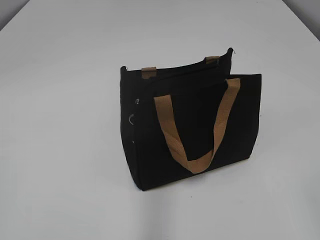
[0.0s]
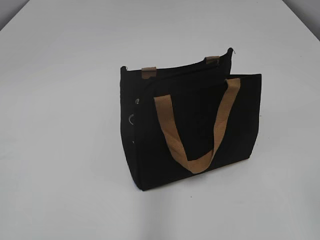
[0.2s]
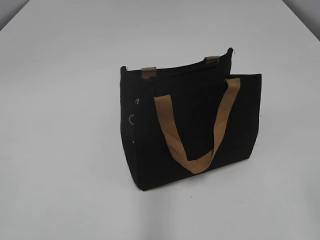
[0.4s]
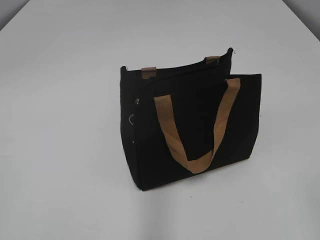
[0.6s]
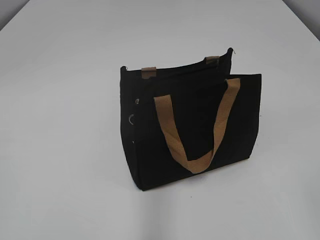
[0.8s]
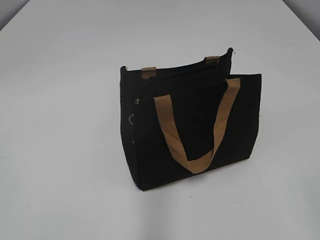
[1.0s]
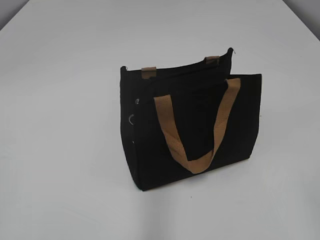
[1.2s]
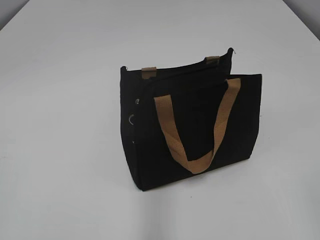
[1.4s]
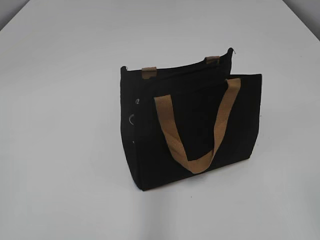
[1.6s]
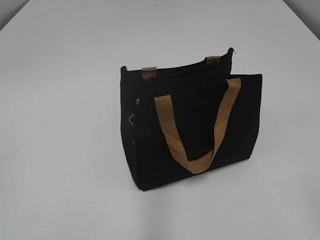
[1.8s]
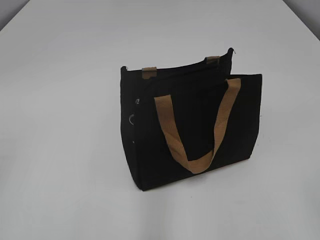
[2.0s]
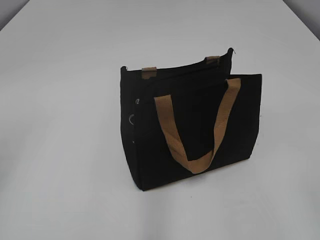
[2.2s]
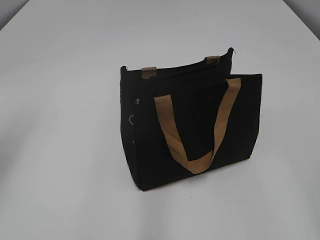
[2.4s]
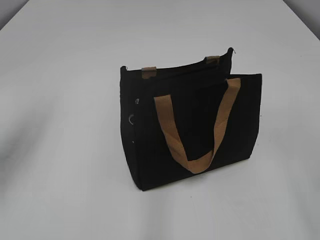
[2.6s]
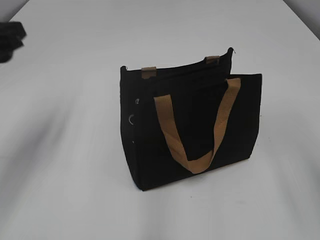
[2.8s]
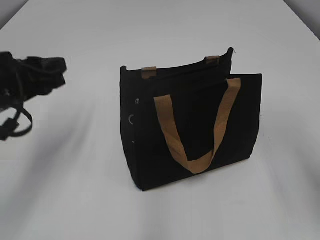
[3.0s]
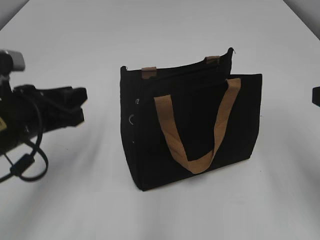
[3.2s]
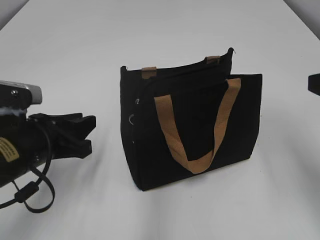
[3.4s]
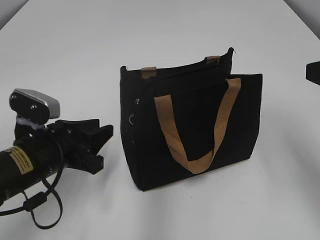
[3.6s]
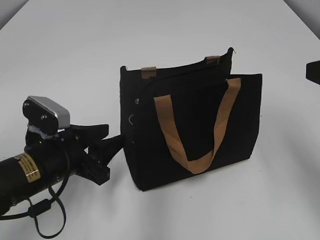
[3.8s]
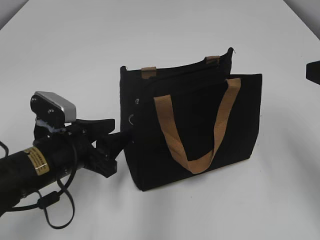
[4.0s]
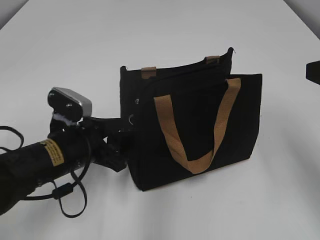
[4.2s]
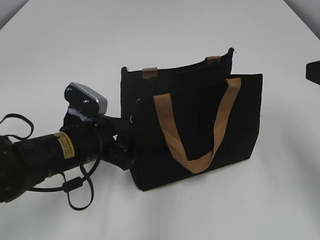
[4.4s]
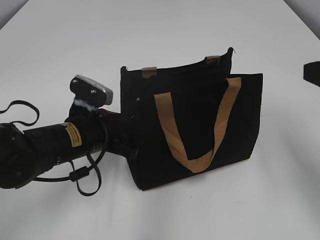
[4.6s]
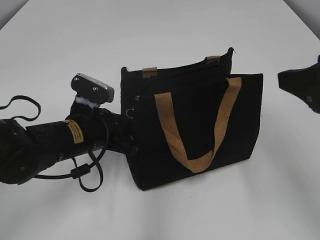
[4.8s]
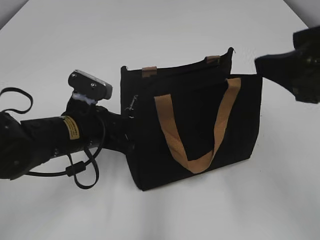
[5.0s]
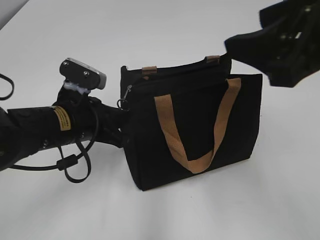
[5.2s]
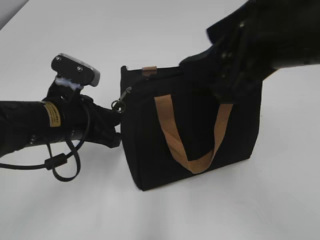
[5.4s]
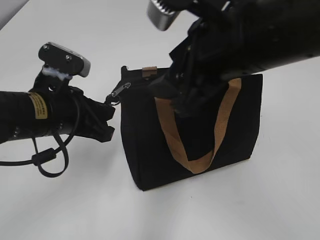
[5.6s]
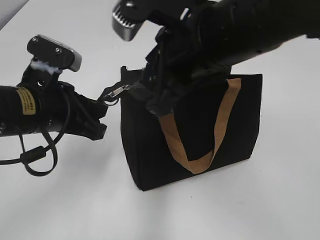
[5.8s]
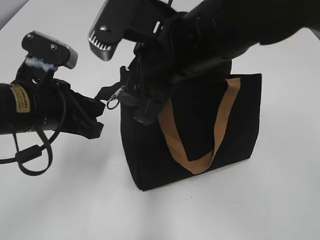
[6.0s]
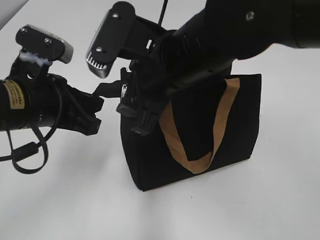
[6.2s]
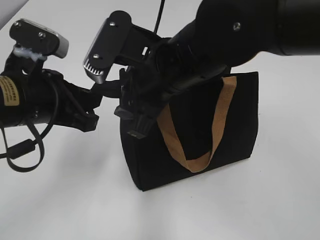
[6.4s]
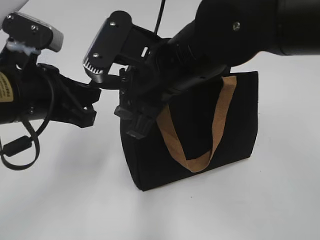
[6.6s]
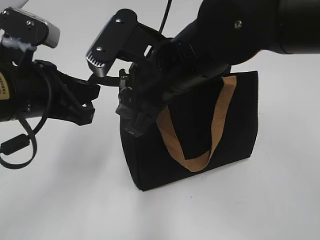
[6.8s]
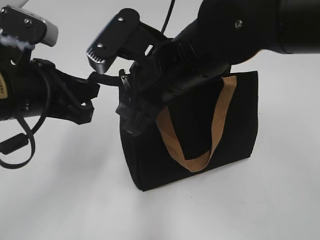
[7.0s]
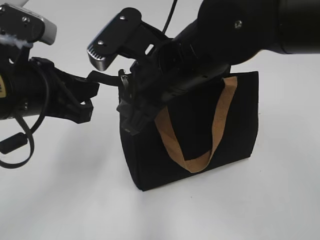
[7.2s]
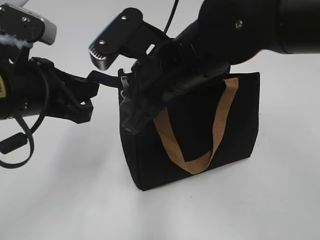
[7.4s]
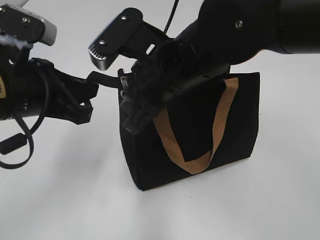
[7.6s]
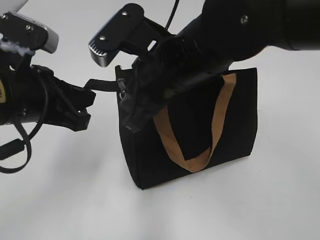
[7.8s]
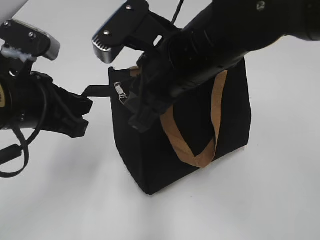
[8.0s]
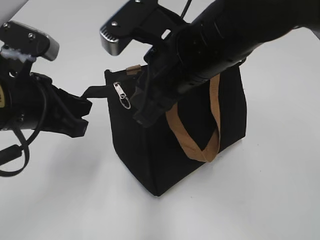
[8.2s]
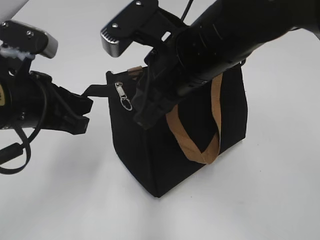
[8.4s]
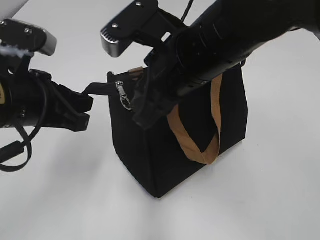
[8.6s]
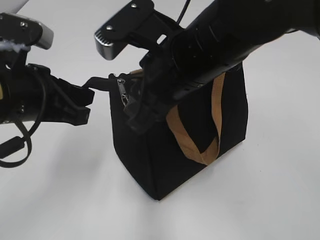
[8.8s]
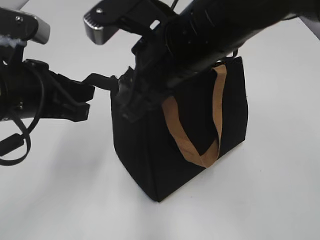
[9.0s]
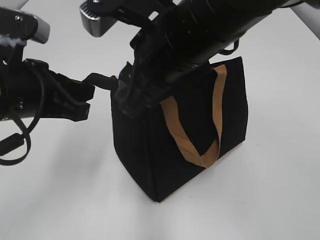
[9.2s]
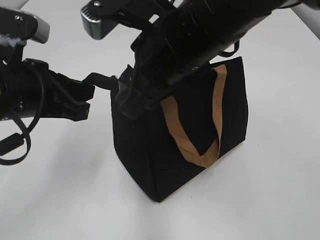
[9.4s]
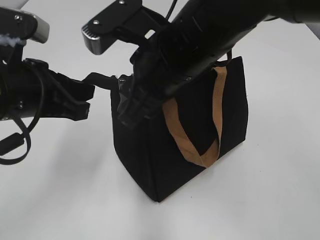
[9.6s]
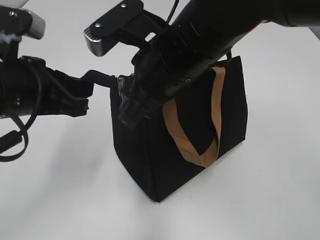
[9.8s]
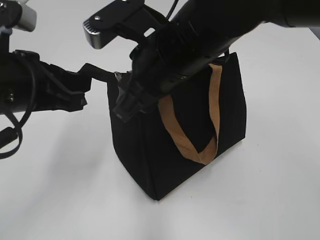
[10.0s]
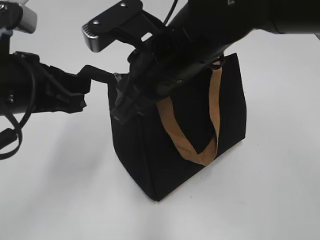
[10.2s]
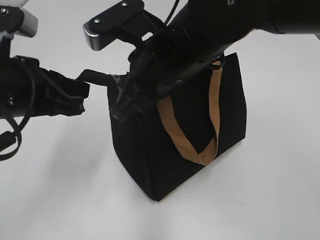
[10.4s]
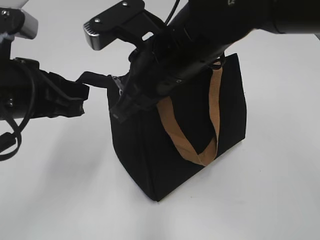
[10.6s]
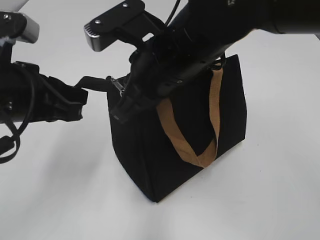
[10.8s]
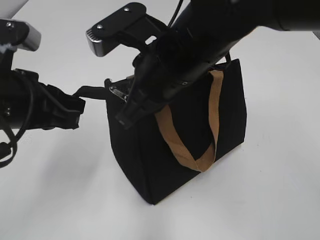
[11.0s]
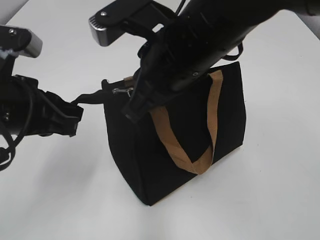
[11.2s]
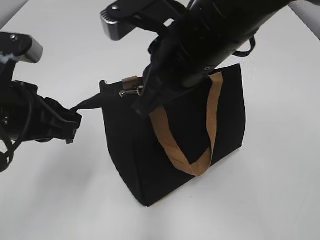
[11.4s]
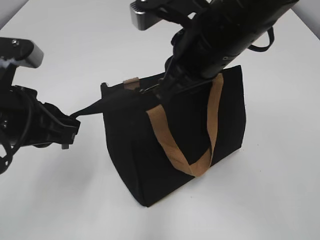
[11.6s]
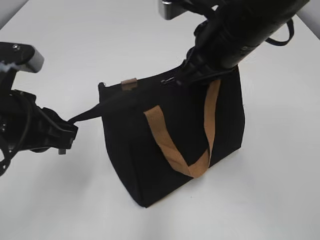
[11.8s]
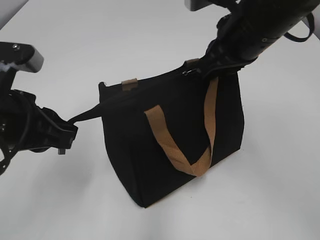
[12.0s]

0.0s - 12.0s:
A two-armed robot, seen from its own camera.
1.6s - 3.0s: The right gripper is displaced forward by roughly 15 cm. Meanwhile the left gripper heads forward, covering about 25 cm.
3.0s - 4.4s: The left gripper goes roughly 15 cm downward and to the right, and opens its fingers. Meanwhile the right gripper is displaced forward by roughly 5 cm.
4.4s - 6.0s: The left gripper goes approximately 10 cm upward, and closes. Meanwhile the right gripper moves to the left, some 25 cm.
6.0s - 7.6s: The right gripper closes up.
9.0s - 10.4s: There are only small adjustments of the grippers.
10.4s - 12.0s: The right gripper moves to the right, some 10 cm, and closes up.

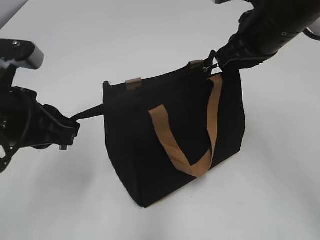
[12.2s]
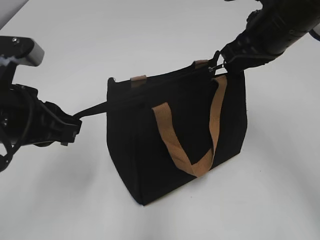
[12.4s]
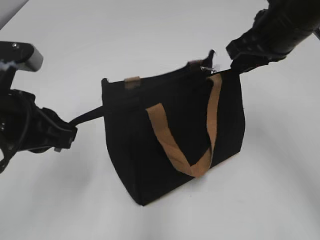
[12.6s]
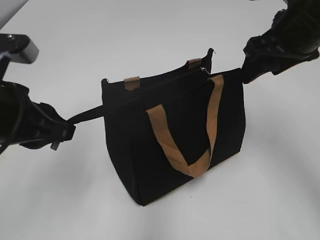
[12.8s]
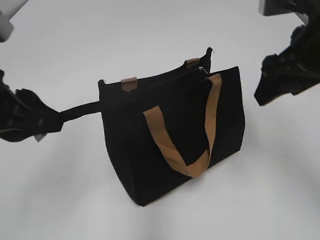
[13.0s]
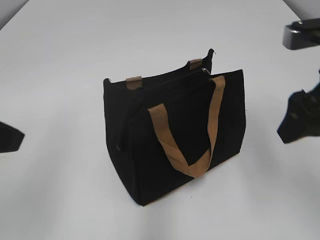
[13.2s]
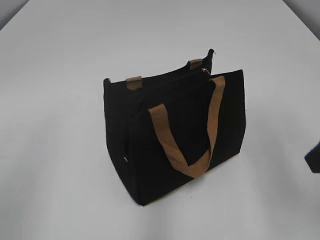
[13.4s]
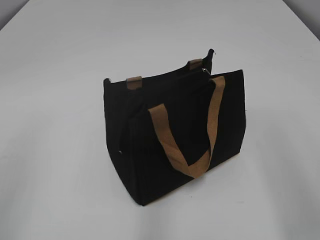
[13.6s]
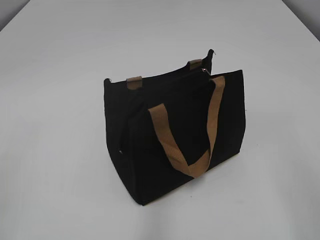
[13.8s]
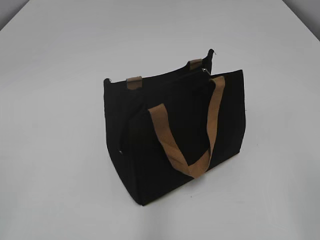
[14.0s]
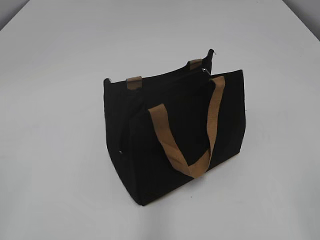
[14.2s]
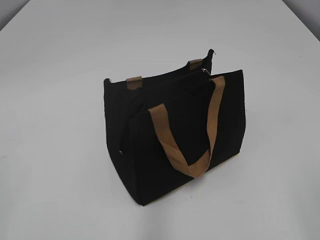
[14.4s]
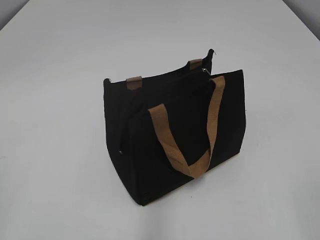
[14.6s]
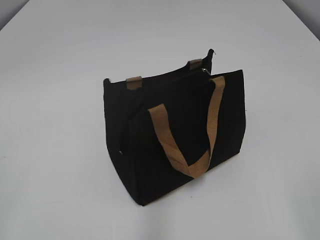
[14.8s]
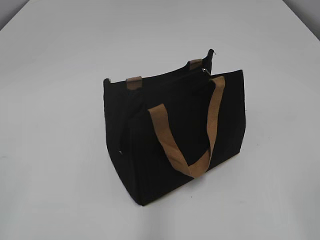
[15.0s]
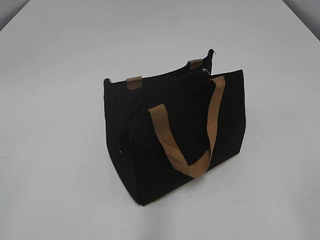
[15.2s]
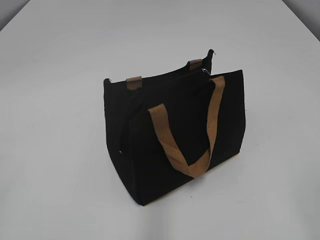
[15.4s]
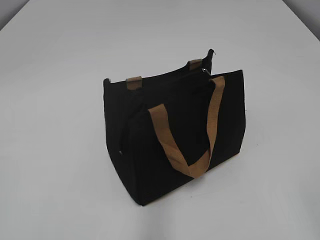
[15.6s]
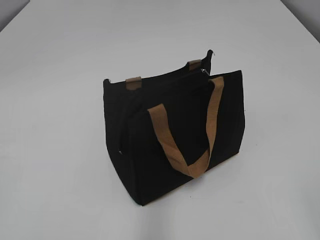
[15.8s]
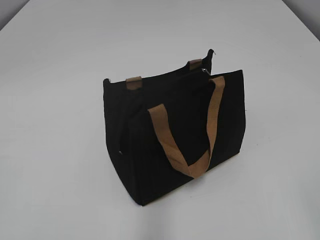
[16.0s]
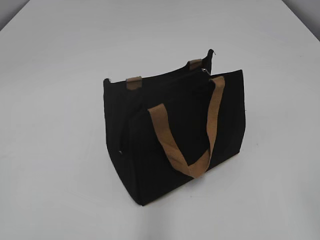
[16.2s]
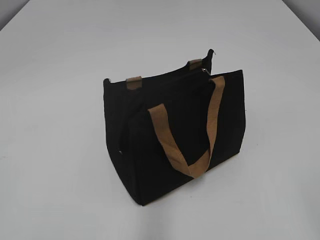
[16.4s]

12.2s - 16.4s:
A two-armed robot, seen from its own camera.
Step, 12.6s - 13.0s: Grab the zipper with your left hand.
12.2s - 13.6s: The left gripper shifts about 15 cm backward, upward and to the left, and opens. Meanwhile the right gripper goes approximately 20 cm backward and to the right, and opens up.
13.6s - 15.0s: The right gripper heads backward, covering roughly 10 cm.

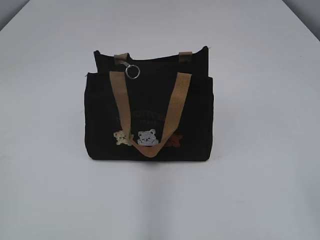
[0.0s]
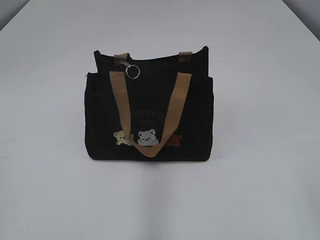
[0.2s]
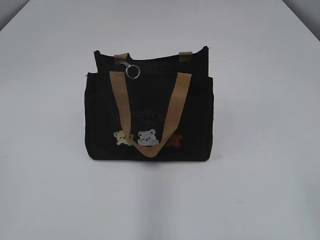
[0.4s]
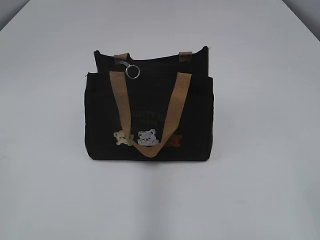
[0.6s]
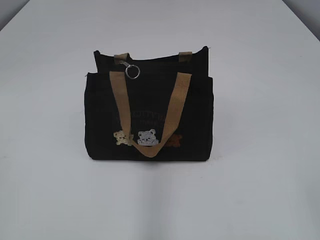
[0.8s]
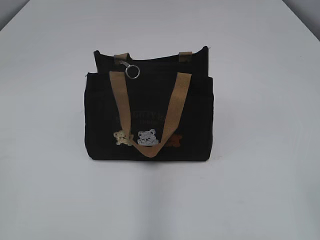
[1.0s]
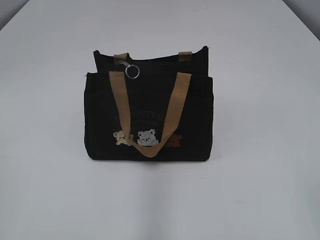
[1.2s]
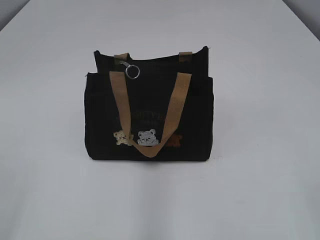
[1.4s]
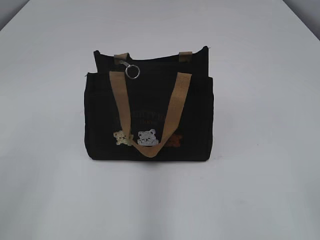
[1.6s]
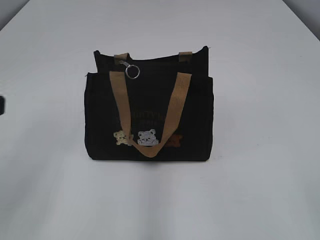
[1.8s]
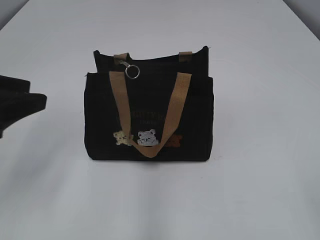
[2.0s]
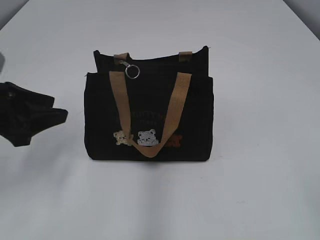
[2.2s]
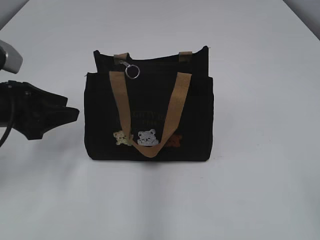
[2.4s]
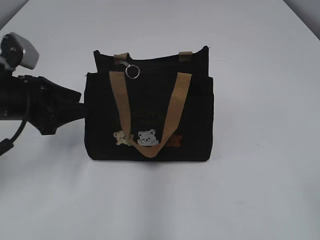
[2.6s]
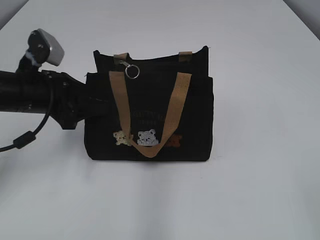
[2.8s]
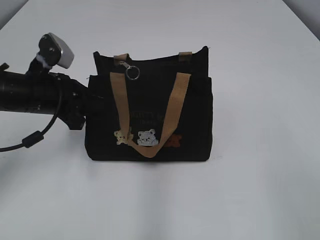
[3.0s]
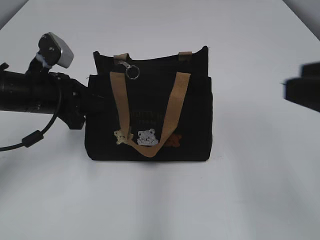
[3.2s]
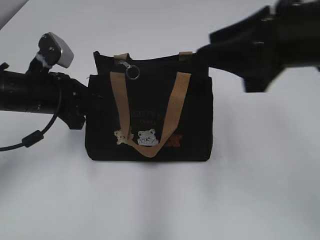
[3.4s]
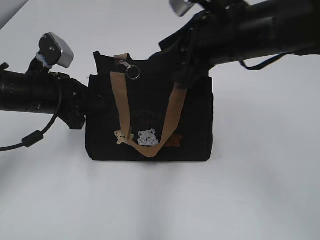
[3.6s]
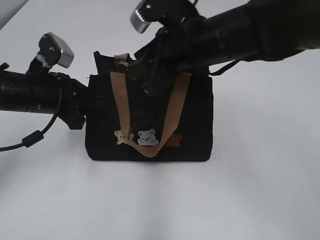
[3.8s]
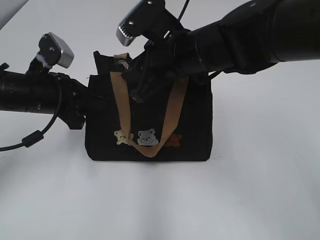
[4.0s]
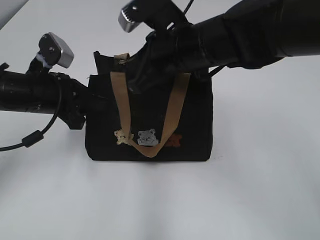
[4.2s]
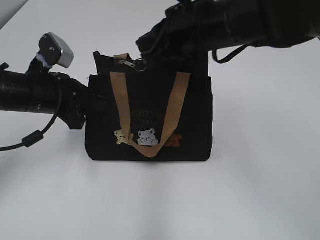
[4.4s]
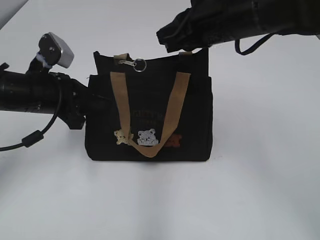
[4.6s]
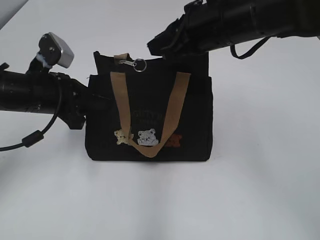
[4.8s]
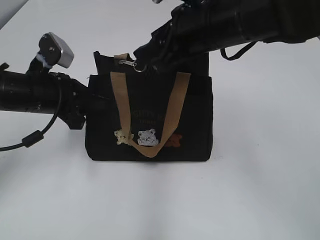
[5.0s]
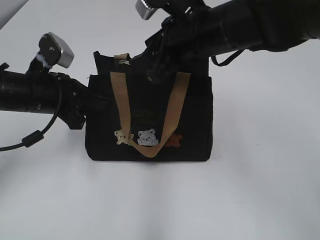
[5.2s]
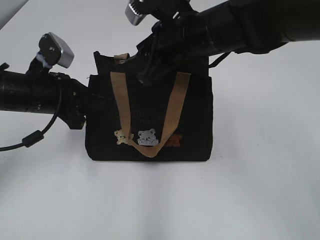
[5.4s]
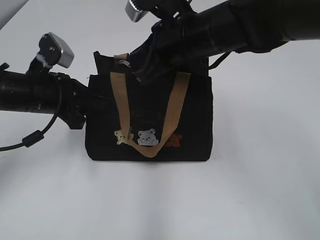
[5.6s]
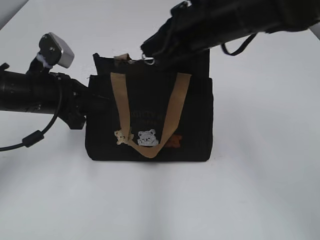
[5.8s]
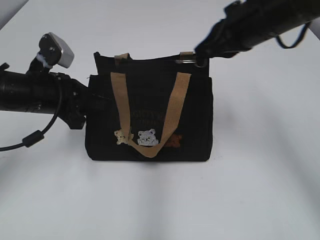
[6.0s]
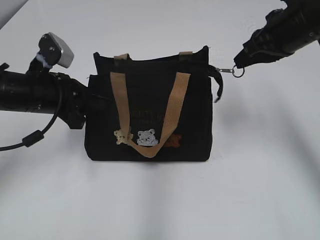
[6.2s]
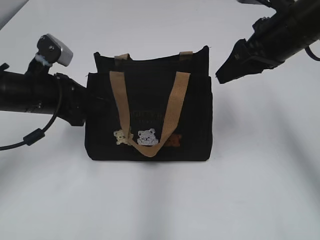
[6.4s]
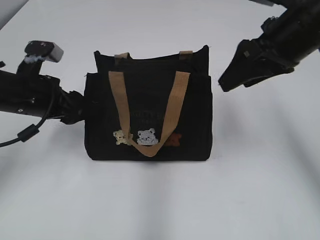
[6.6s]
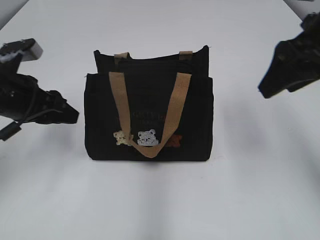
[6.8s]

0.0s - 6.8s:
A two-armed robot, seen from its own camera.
Step, 0.0s - 6.2s: Pull open the zipper with your right hand.
Step, 6.4s - 6.6s: Hold the bag with your left hand.
1.4s - 2.8s: The left gripper shifts about 30 cm forward, and opens.
2.8s - 4.0s: The right gripper travels forward and to the left by roughly 40 cm. Meanwhile the left gripper closes.
4.0s - 5.4s: The right gripper closes, then opens again.
5.4s - 6.8s: The left gripper opens its fingers. The right gripper is displaced to the right by roughly 15 cm, and closes, then reopens.
